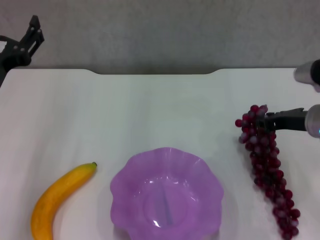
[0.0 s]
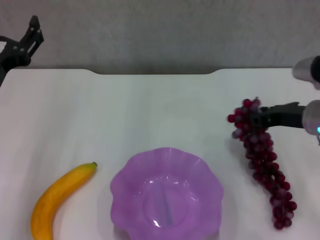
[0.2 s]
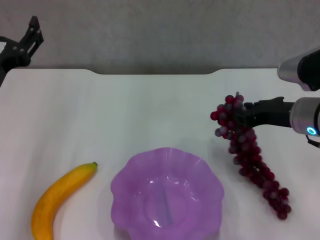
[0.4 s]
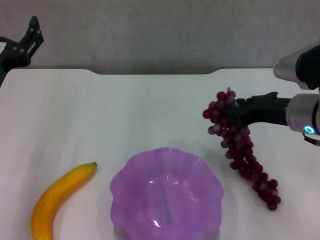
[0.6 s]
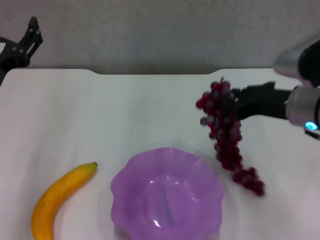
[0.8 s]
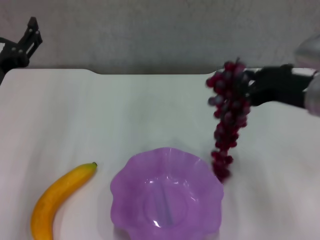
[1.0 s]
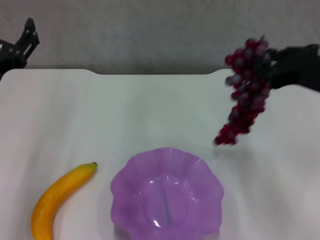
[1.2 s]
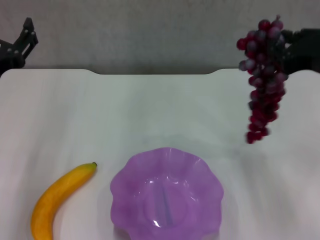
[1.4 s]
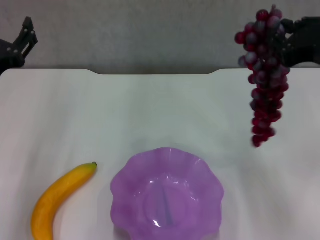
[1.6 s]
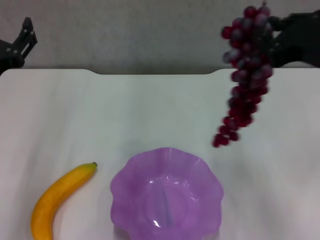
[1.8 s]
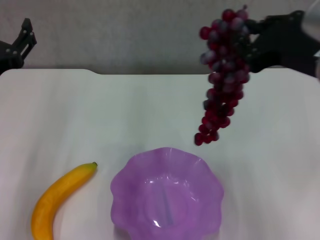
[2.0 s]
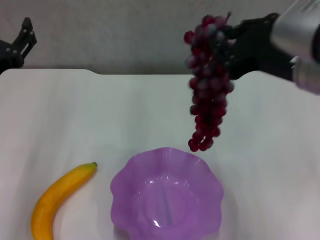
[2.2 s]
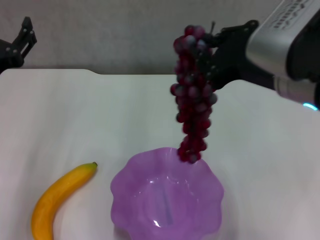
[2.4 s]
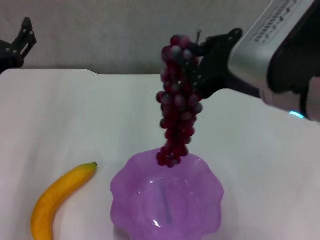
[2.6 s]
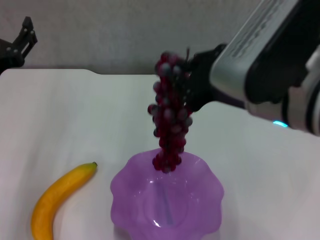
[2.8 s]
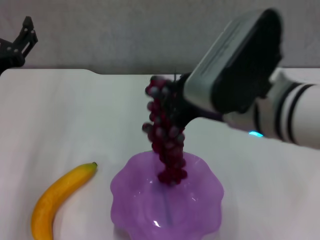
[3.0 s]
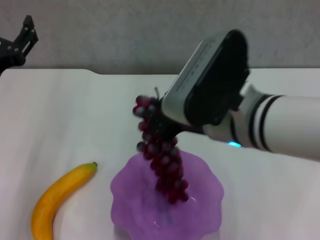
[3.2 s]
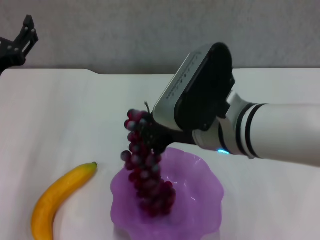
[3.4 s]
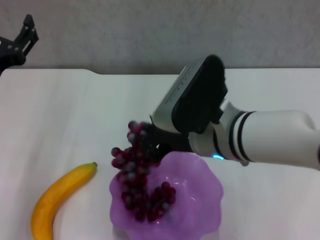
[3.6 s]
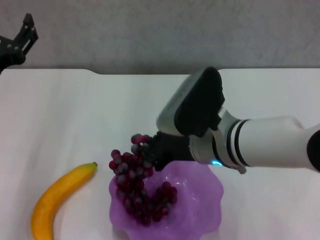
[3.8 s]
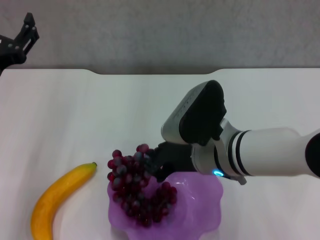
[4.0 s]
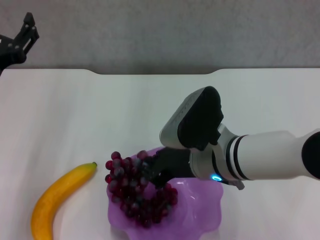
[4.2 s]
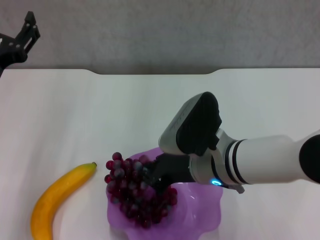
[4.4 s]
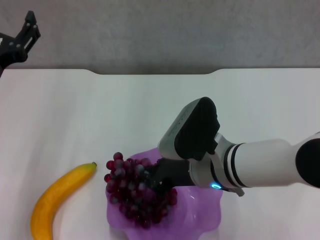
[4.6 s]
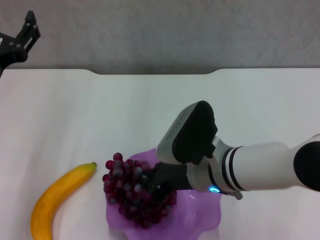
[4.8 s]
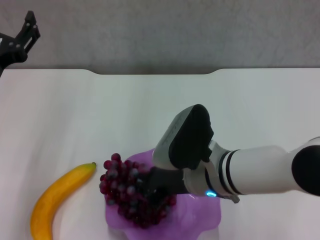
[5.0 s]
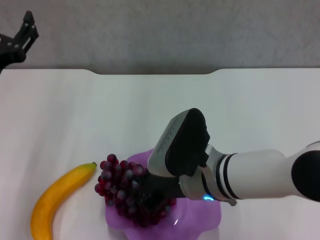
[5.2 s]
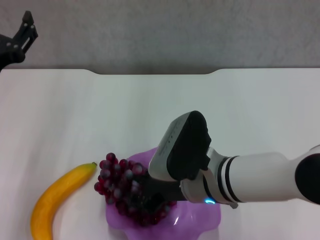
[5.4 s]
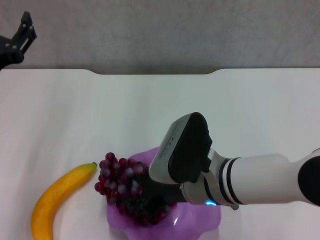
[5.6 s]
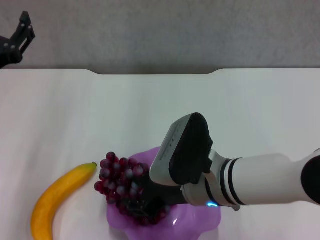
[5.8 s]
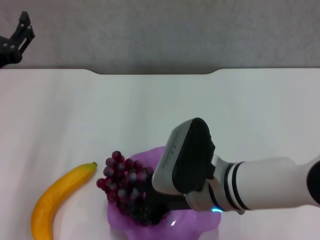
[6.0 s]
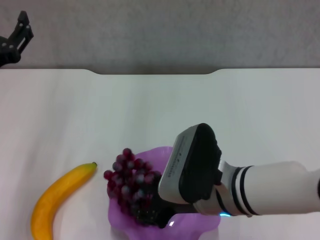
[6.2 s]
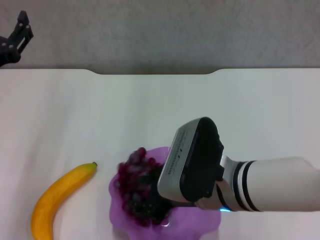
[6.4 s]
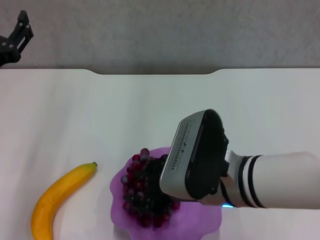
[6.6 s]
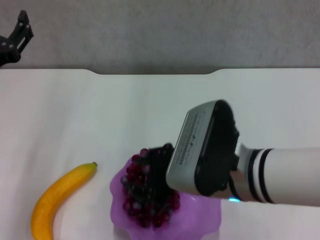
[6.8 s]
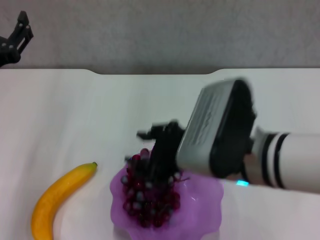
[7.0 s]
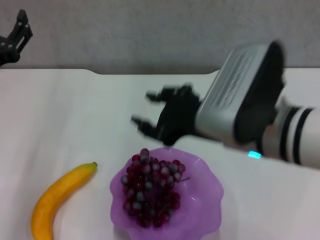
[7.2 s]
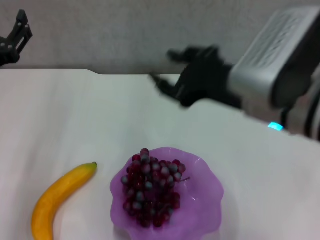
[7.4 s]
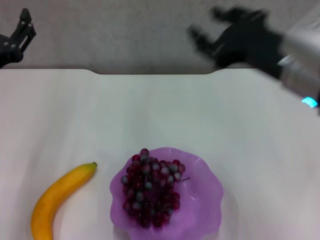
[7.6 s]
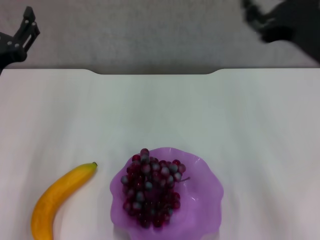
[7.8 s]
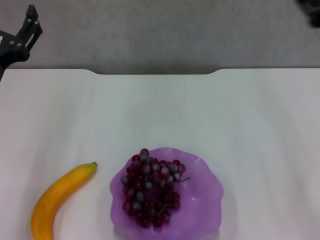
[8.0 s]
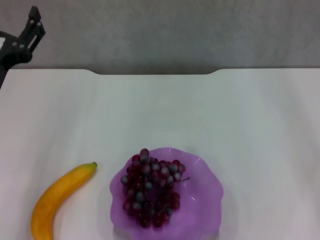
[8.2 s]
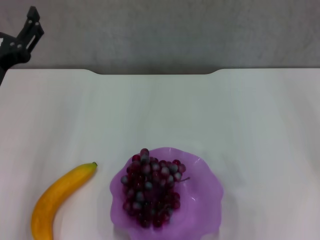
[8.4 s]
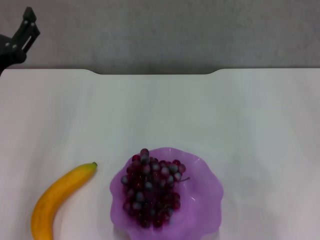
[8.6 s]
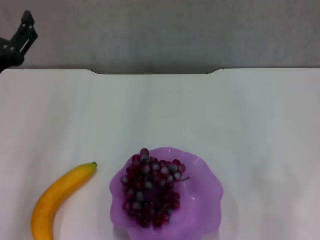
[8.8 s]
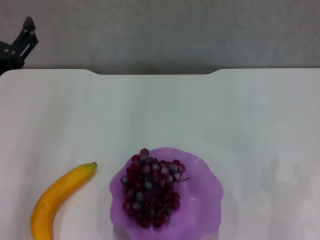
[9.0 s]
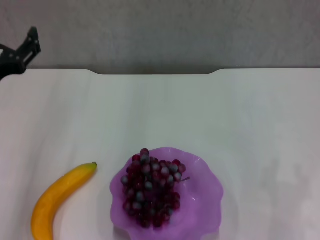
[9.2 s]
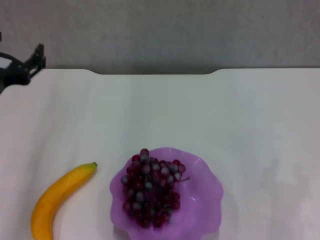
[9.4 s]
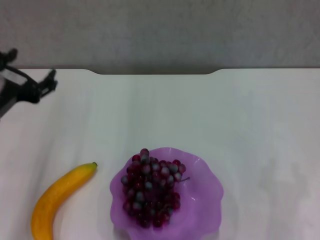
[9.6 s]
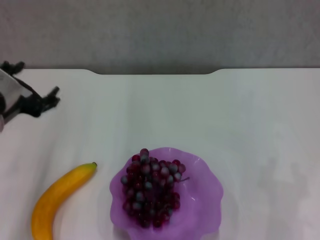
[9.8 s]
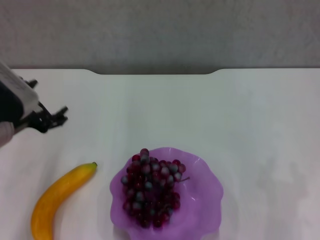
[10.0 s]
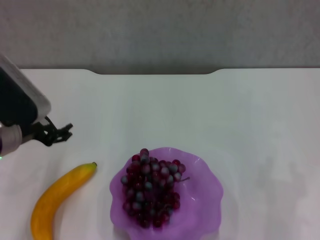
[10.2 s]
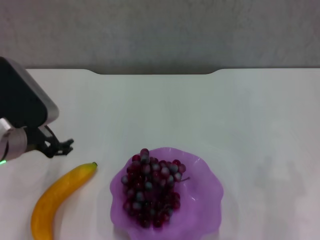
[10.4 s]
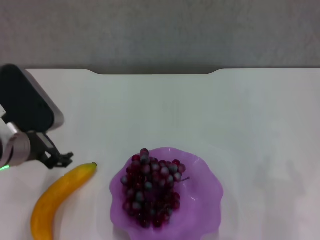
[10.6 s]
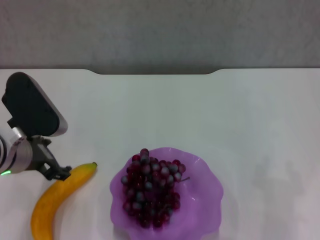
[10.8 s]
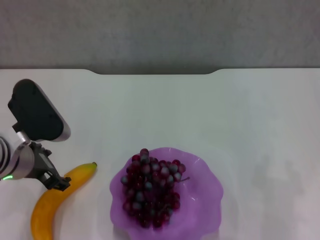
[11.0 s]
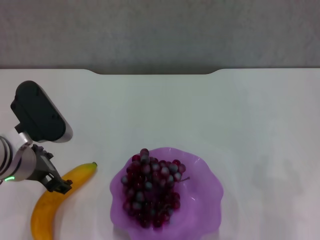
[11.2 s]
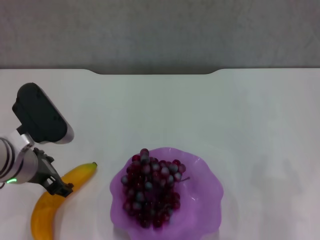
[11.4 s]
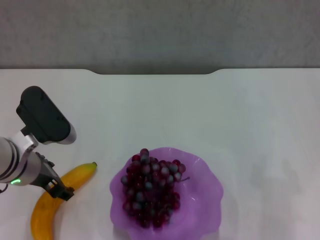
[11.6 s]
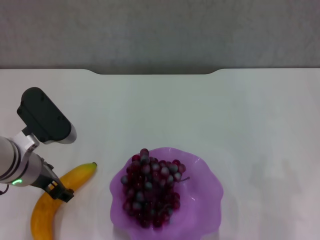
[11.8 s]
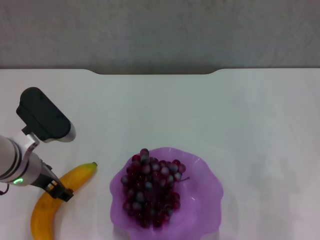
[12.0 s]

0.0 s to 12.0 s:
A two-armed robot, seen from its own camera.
Step, 0.0 to 6.6 s: Place the grape in the purple plate with right gripper.
0.0 to 1.6 s: The right gripper heads upward and backward, covering about 15 cm.
1.6 to 3.0 s: The right gripper moves to the left, some 10 cm.
3.0 to 4.4 s: The right gripper travels downward by some 10 cm.
4.4 to 6.0 s: The right gripper opens.
6.0 to 7.6 s: The right gripper heads upward and to the right, covering approximately 15 cm.
7.6 to 9.0 s: The right gripper travels to the right and downward by approximately 20 cm.
10.4 to 12.0 s: The left gripper ends up roughly 5 cm from where it was.

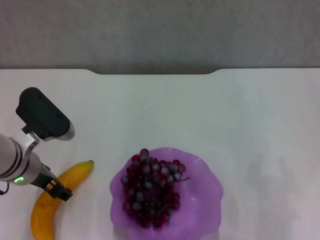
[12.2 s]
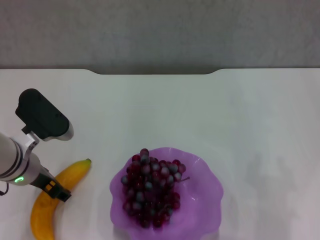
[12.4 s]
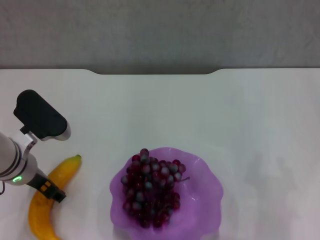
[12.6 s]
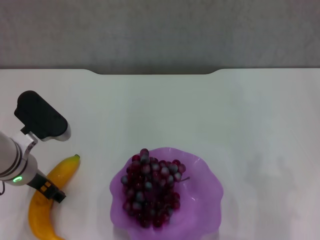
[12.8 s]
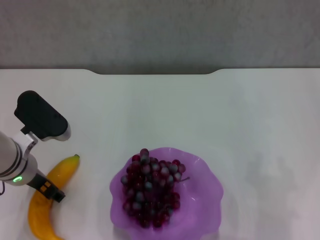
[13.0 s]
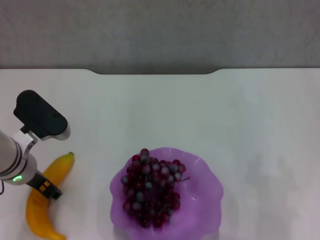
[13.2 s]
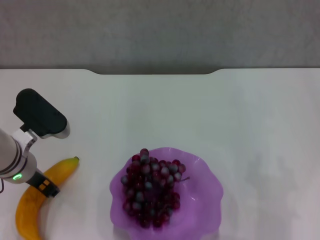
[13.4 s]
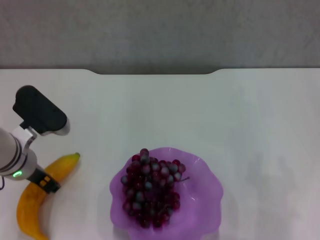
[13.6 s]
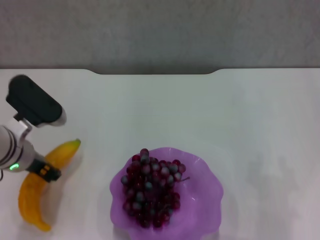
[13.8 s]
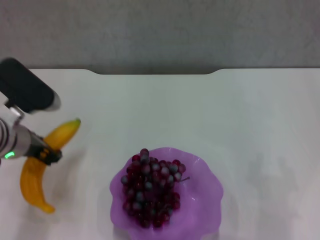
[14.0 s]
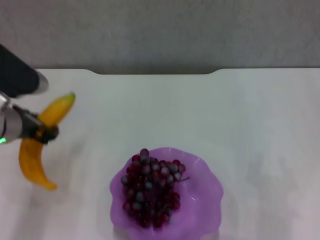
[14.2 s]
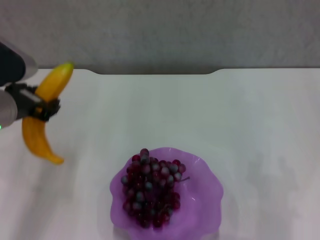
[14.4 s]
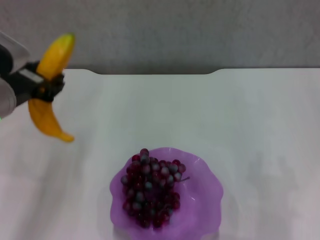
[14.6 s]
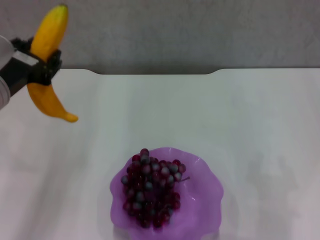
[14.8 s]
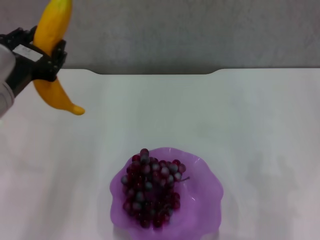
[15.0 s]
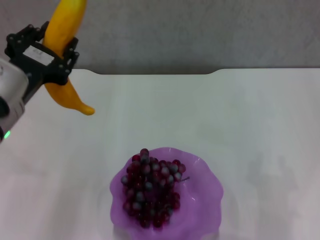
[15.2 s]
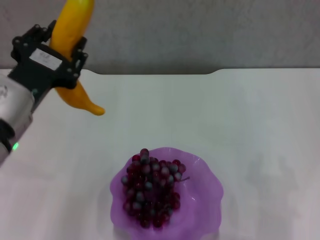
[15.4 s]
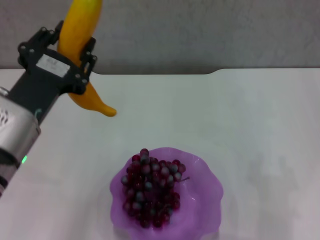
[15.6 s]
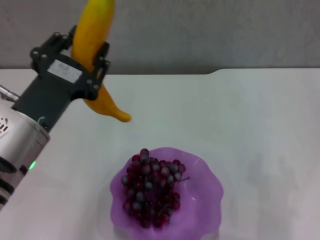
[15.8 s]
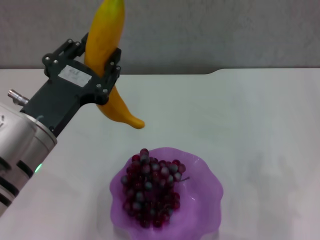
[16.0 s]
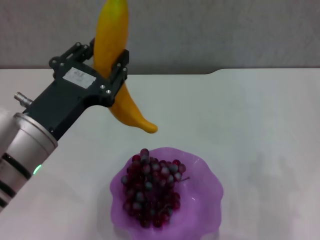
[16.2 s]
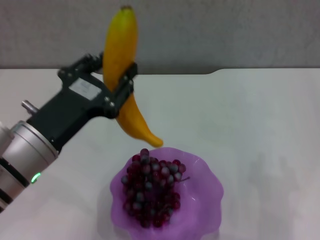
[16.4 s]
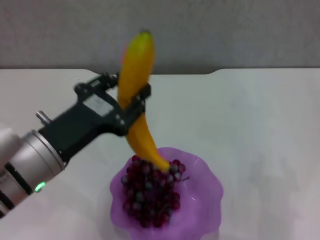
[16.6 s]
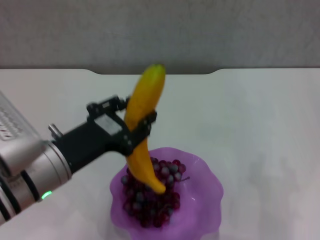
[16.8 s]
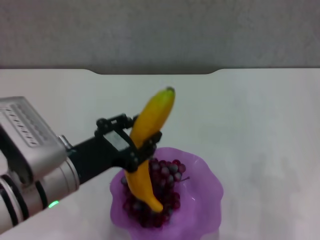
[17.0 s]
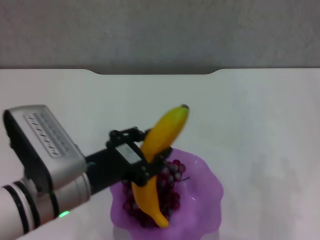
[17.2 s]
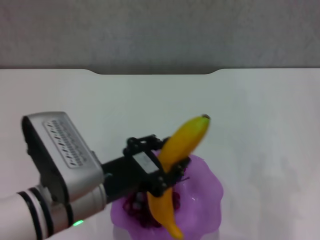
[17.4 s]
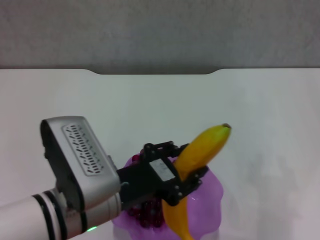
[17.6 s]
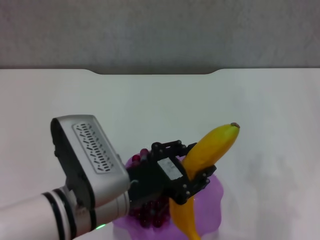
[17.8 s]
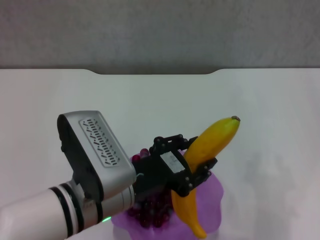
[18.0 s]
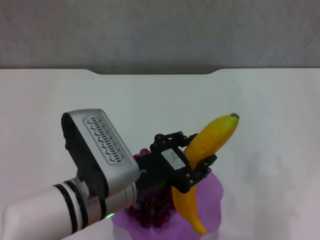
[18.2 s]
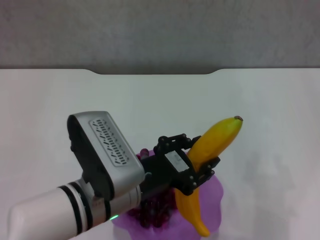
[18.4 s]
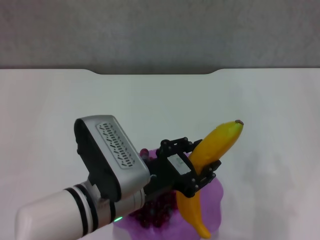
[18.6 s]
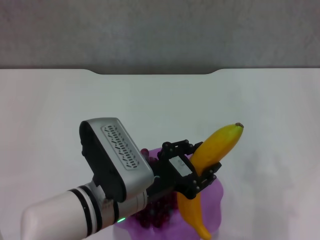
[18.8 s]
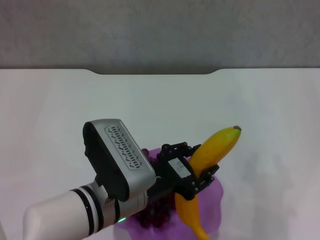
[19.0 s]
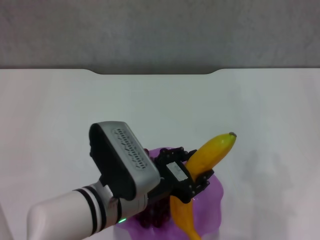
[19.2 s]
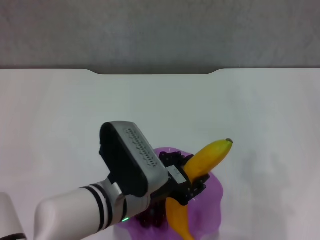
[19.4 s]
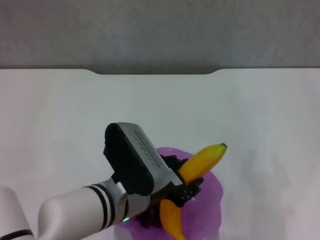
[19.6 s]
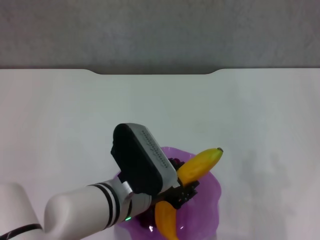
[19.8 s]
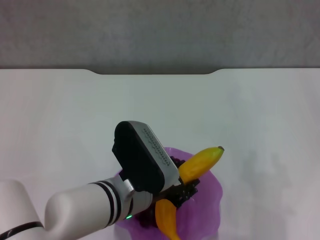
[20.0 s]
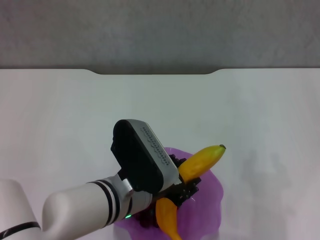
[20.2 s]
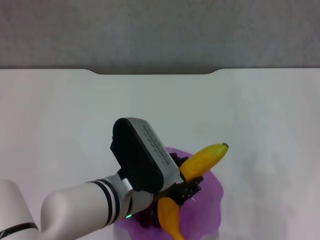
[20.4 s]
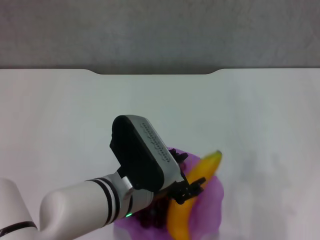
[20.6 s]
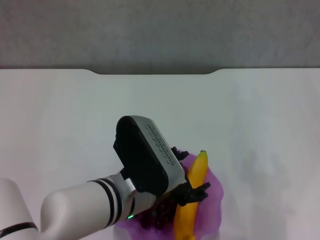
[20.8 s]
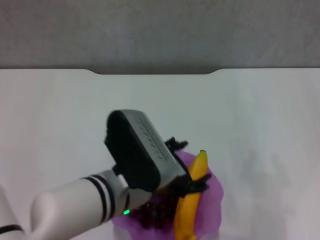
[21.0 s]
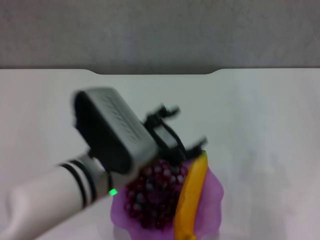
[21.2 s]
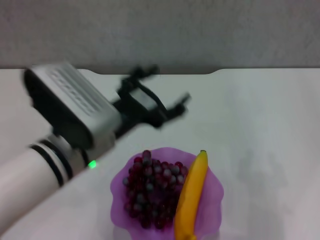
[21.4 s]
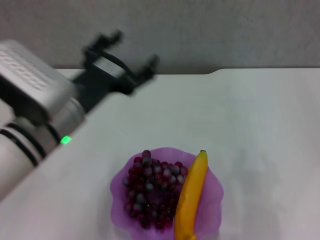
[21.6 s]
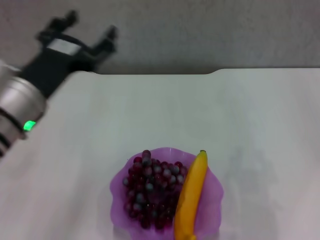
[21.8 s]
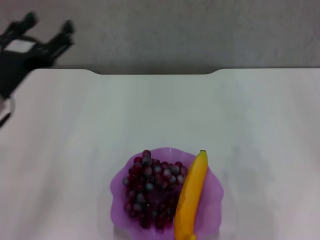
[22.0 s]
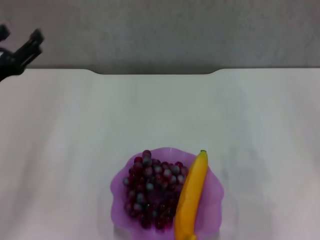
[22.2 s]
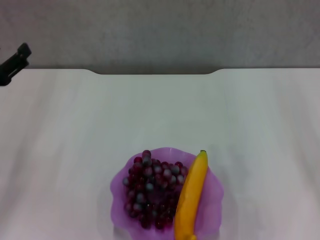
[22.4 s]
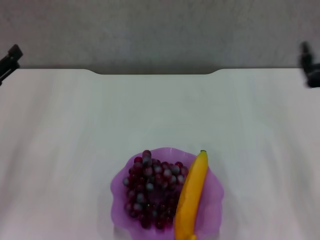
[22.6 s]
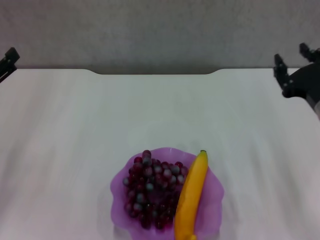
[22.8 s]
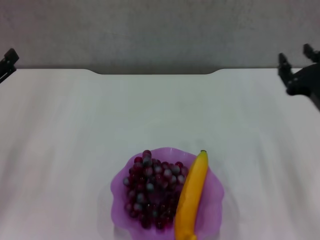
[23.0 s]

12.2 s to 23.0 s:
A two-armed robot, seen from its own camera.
Step, 13.4 to 20.8 s: Place the banana in the purple plate with left gripper.
12.2 to 13.8 s: The left gripper closes its fingers.
13.8 to 15.2 s: The left gripper is displaced upward and backward by roughly 10 cm.
15.2 to 16.8 s: The left gripper heads downward, covering approximately 5 cm.
16.8 to 18.4 s: The left gripper travels to the right by roughly 10 cm.
20.0 to 21.4 s: The left gripper moves upward, roughly 10 cm, and opens up.
21.4 to 23.0 s: The right gripper travels to the left by roughly 10 cm. Meanwhile the left gripper heads to the left, covering about 20 cm.
